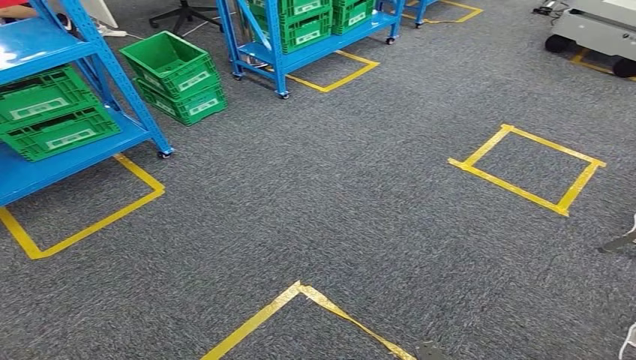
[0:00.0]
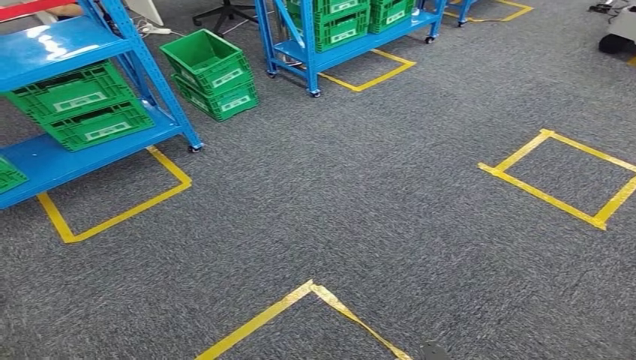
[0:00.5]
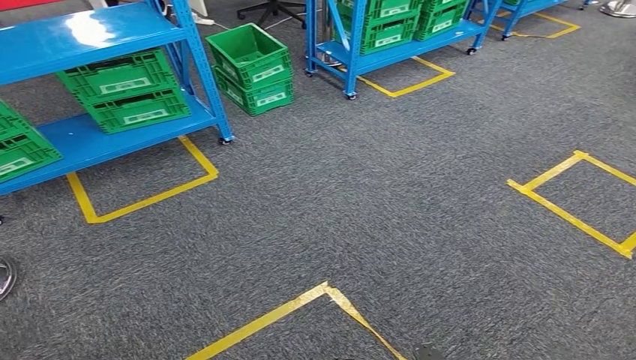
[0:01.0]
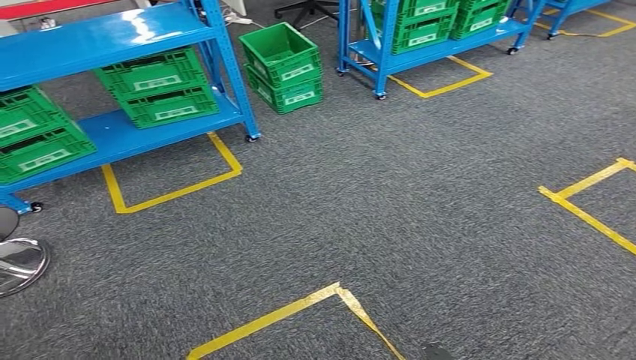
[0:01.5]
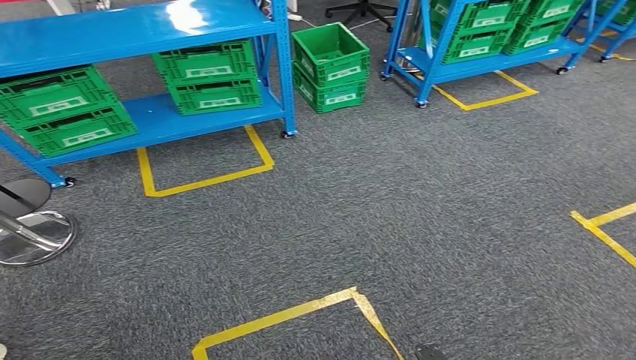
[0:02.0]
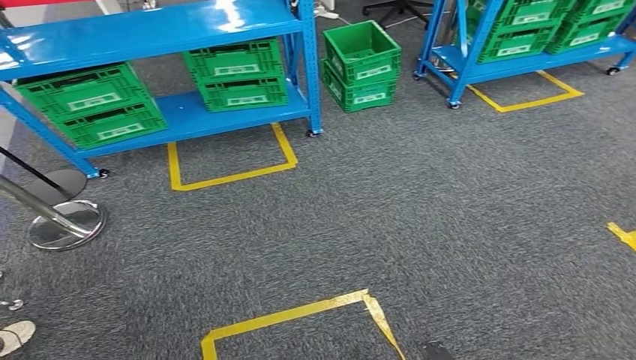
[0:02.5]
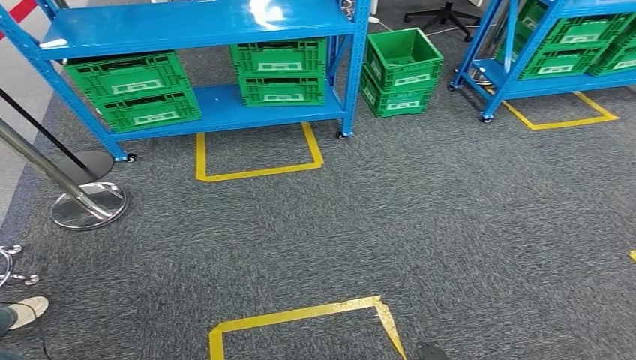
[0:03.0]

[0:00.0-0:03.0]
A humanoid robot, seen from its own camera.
Step, 0:00.0 to 0:03.0: Move to the initial position of the workbench.
